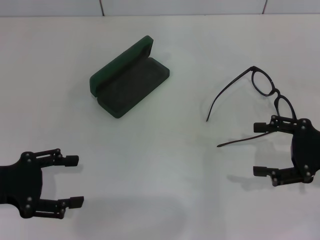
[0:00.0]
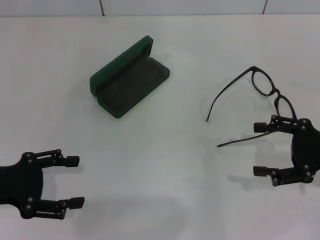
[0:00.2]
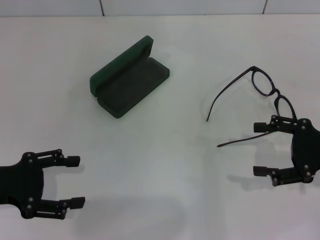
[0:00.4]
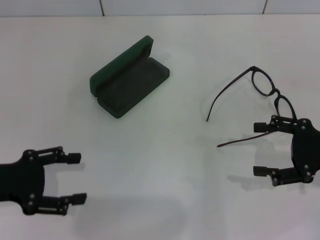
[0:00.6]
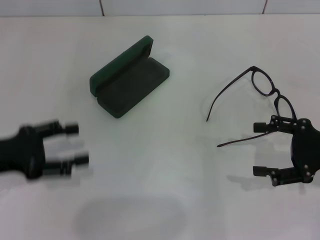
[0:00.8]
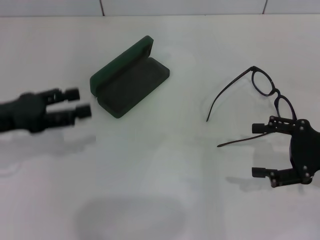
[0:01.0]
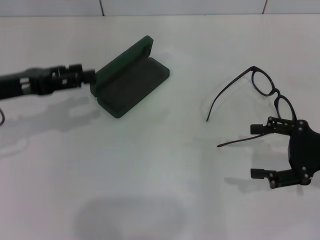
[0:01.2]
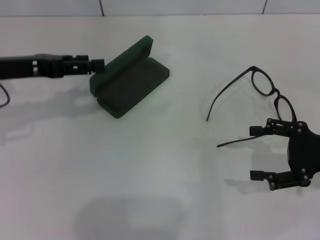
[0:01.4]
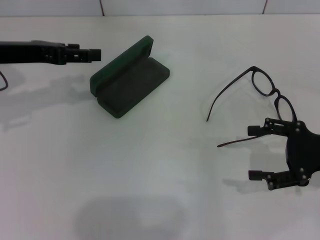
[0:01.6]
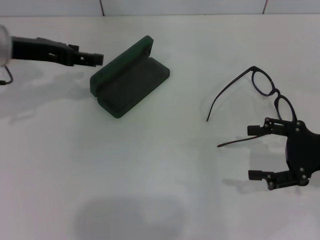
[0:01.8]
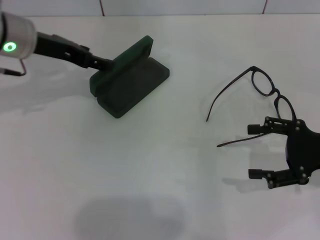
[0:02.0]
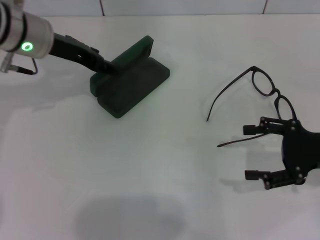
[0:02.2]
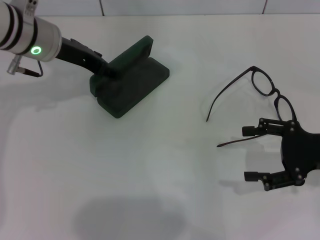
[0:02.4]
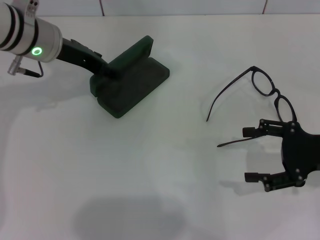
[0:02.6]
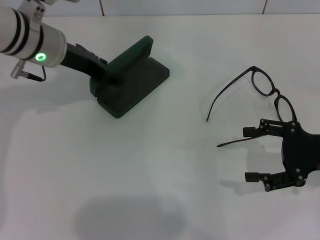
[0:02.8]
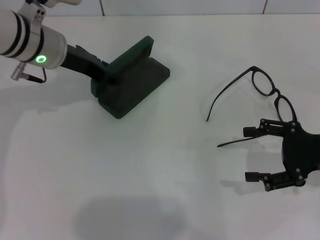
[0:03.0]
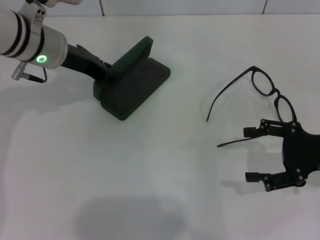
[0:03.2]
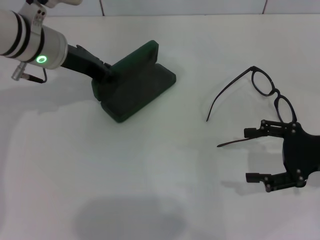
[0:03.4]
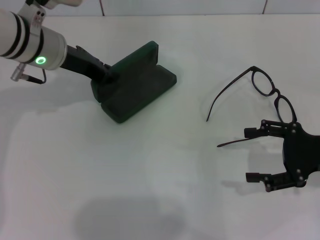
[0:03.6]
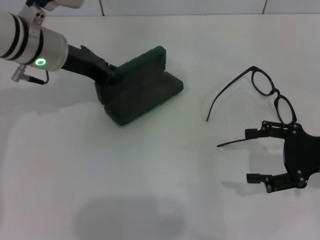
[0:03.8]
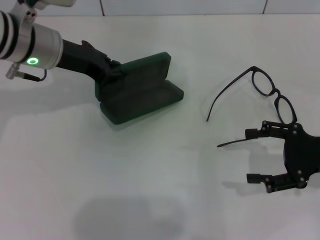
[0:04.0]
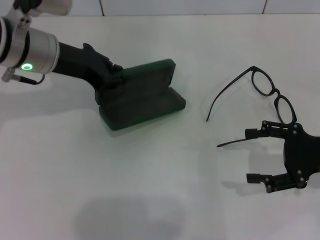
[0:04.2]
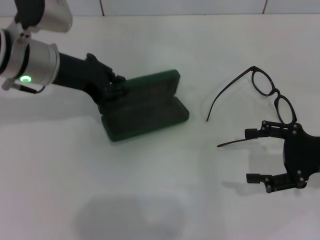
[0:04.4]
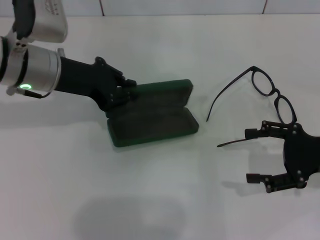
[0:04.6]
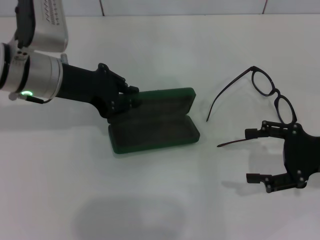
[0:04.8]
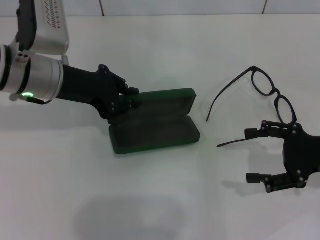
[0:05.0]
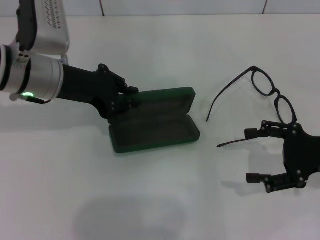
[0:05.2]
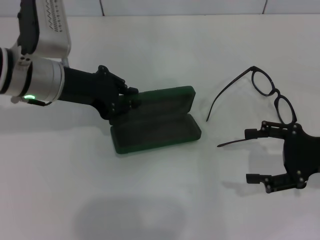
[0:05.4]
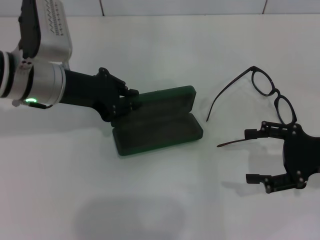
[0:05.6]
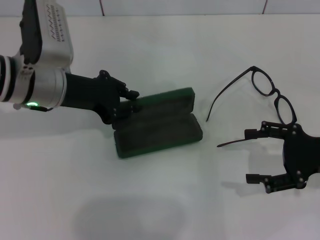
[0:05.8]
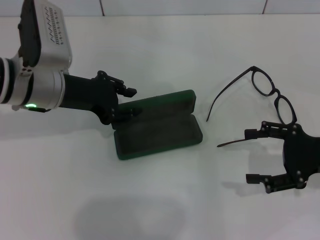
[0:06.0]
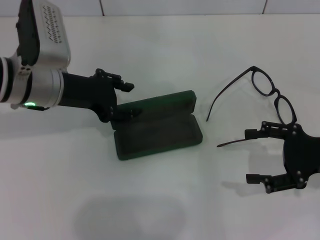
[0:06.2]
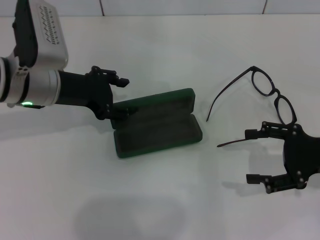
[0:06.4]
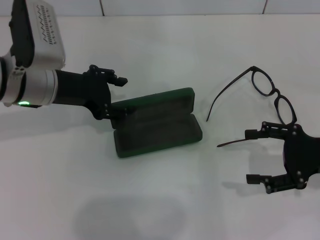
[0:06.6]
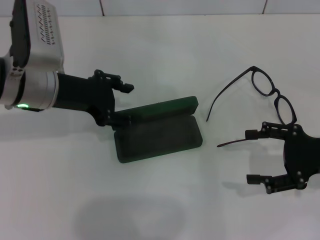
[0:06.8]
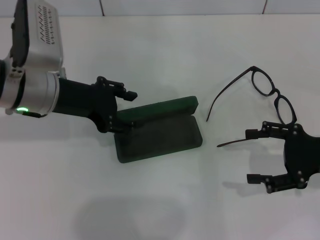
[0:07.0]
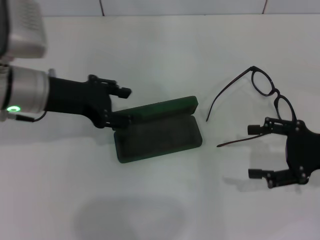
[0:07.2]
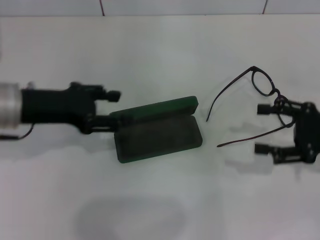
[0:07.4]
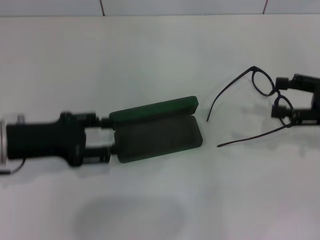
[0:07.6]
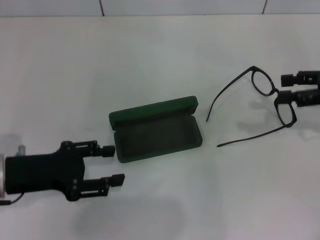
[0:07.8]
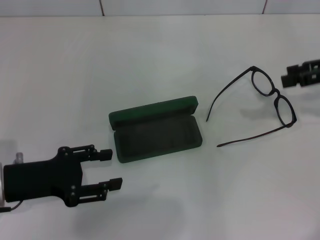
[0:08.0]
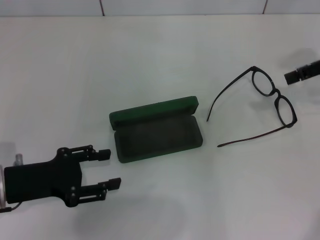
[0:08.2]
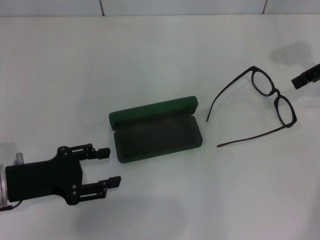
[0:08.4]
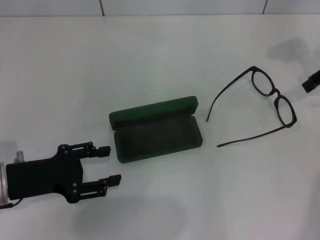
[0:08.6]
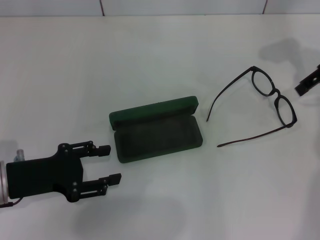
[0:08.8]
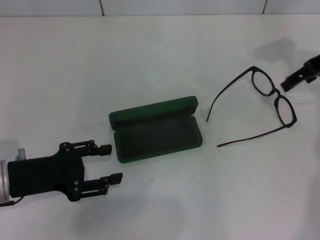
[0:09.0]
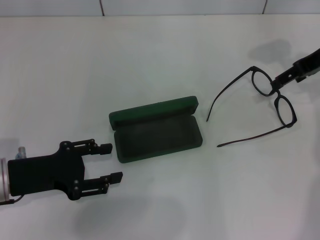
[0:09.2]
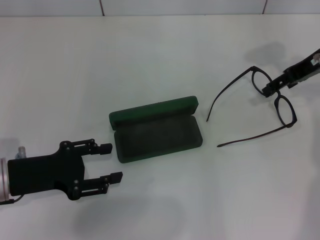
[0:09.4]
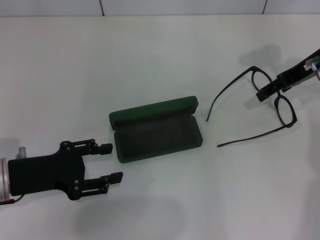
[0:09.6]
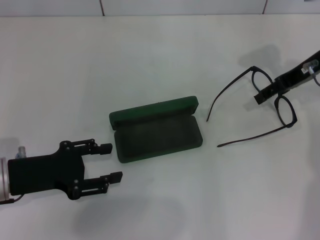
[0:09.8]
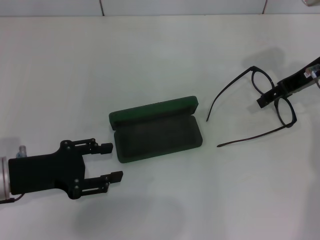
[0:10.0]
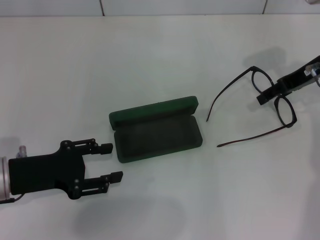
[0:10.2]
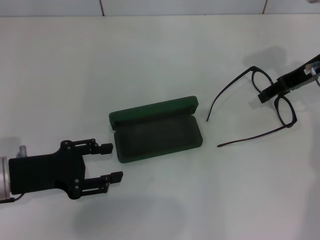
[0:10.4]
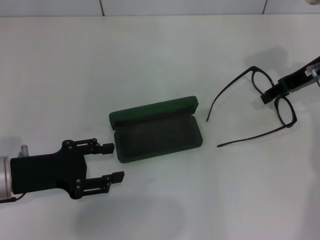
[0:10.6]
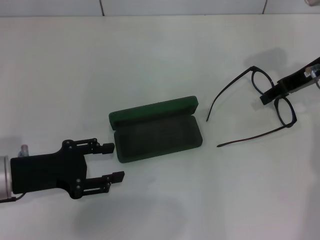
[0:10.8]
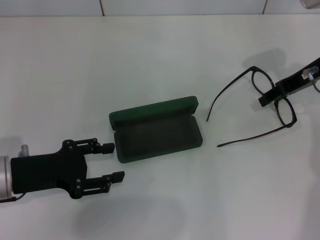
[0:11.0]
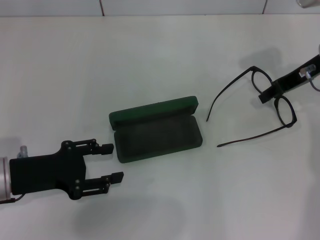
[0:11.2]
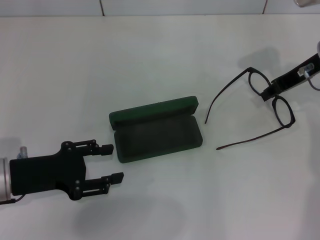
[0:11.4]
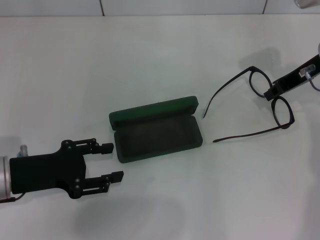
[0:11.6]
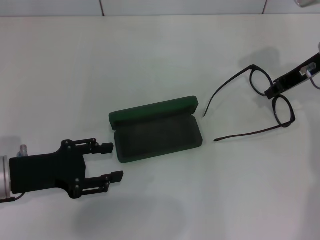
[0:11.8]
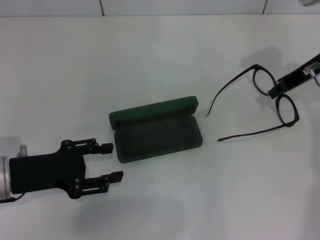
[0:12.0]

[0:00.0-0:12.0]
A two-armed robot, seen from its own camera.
Step, 0:00.0 to 0:03.4: Grab the glasses case with your left hand.
Step, 0:03.8 to 0:06.0: Place the glasses case in the center of the table with your left hand.
Step, 0:06.2 to 0:11.6: Grab the eyeglass frame with your right hand.
0:00.0 to 0:01.6: The left gripper travels forward and upward by approximately 15 cm.
0:01.6 to 0:03.0: The left gripper goes approximately 10 cm to the right.
0:03.0 to 0:04.4: The left gripper closes its fingers.
0:04.4 to 0:06.0: The grippers stay close to where they were, moving slightly.
0:06.0 to 0:07.6: The left gripper goes approximately 10 cm backward and to the left, and opens. Meanwhile the right gripper shifts by about 5 cm.
0:07.6 to 0:09.0: The left gripper ends up about 5 cm from where it was, while the right gripper heads forward, upward and to the left, covering about 15 cm.
0:09.0 to 0:10.4: The right gripper ends up about 5 cm from where it was.
0:10.4 to 0:12.0: The right gripper closes up.

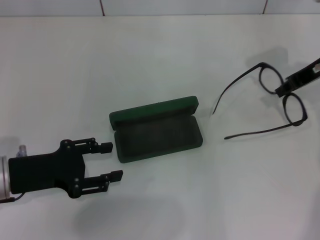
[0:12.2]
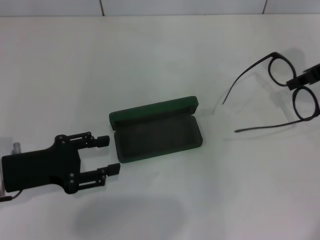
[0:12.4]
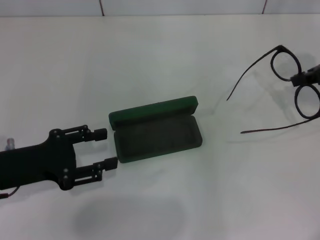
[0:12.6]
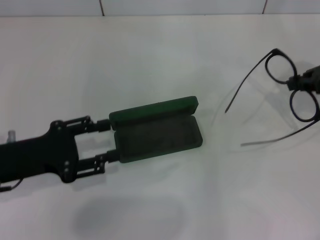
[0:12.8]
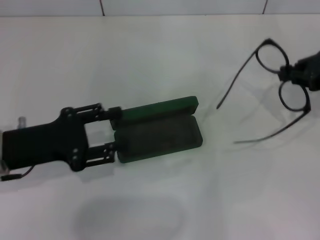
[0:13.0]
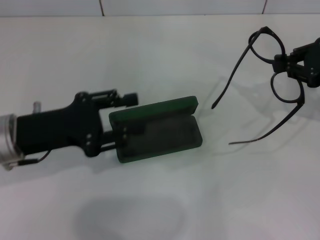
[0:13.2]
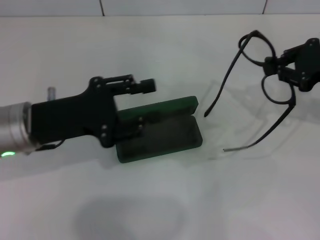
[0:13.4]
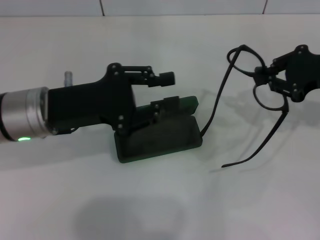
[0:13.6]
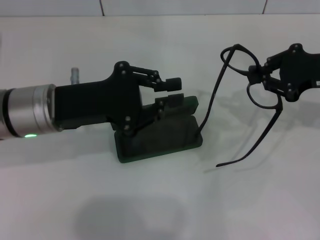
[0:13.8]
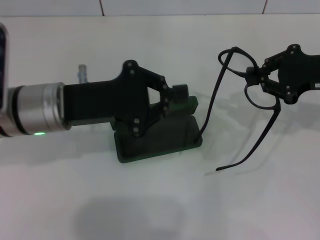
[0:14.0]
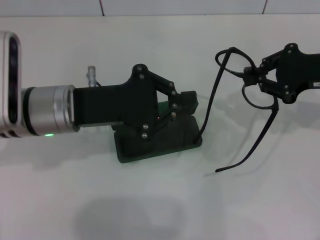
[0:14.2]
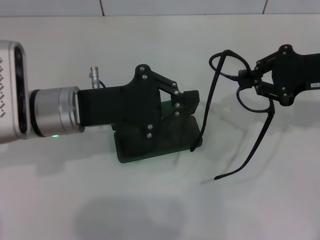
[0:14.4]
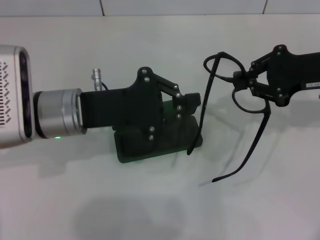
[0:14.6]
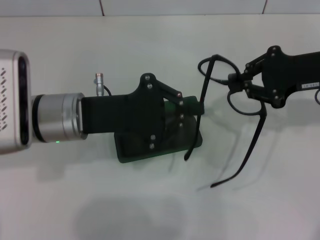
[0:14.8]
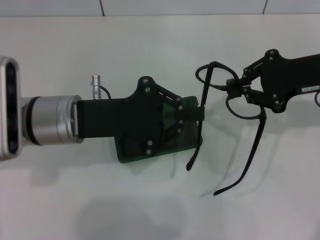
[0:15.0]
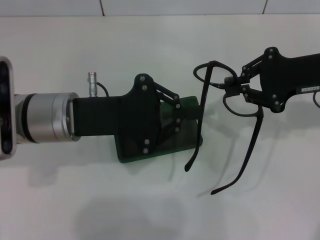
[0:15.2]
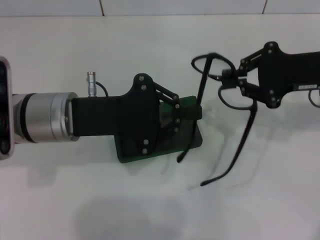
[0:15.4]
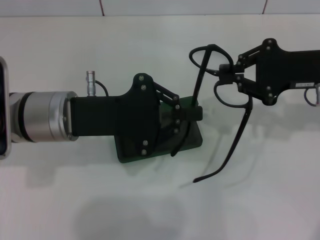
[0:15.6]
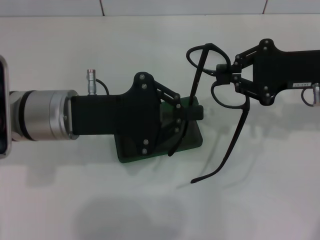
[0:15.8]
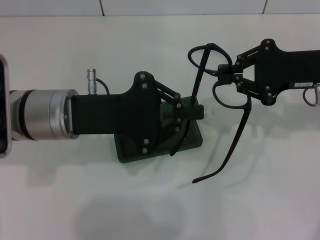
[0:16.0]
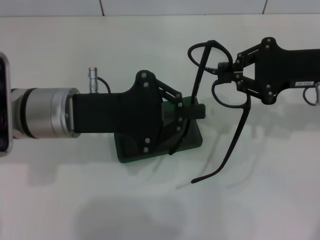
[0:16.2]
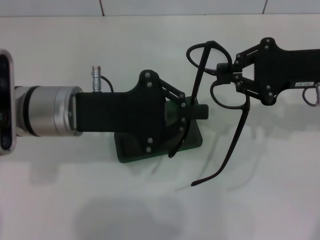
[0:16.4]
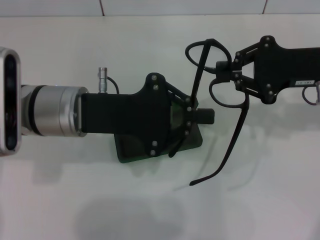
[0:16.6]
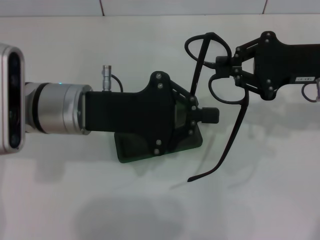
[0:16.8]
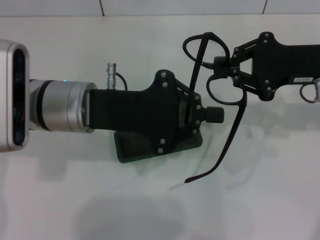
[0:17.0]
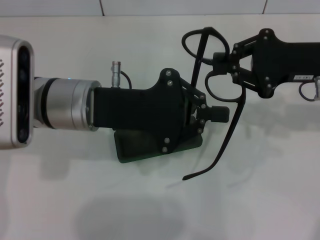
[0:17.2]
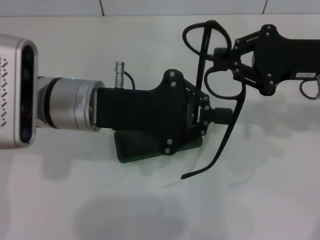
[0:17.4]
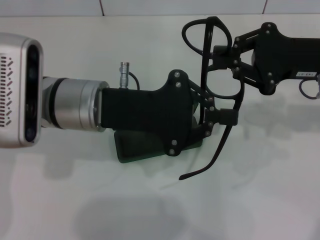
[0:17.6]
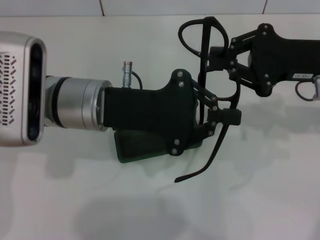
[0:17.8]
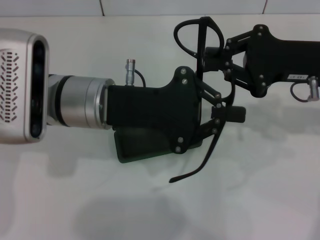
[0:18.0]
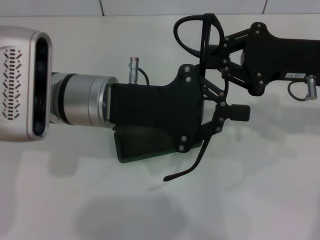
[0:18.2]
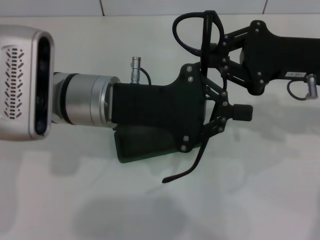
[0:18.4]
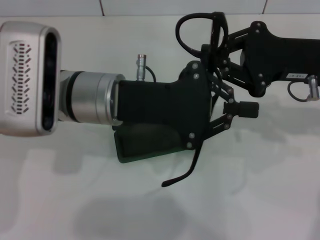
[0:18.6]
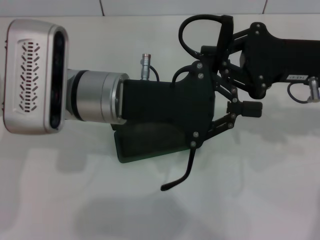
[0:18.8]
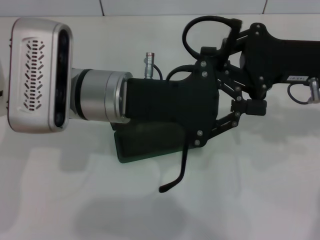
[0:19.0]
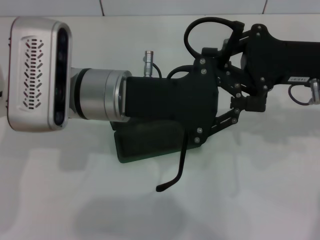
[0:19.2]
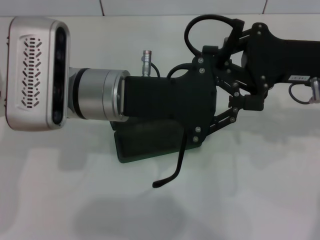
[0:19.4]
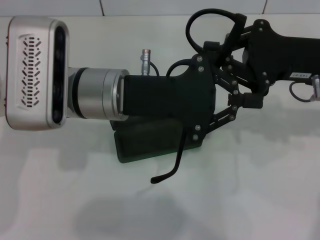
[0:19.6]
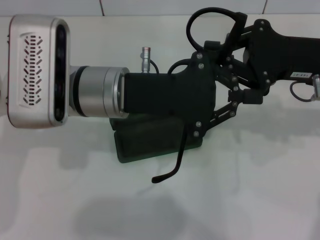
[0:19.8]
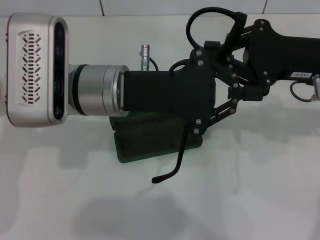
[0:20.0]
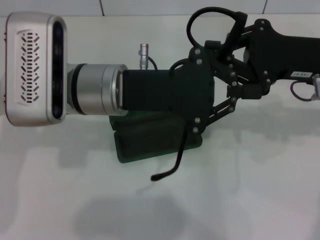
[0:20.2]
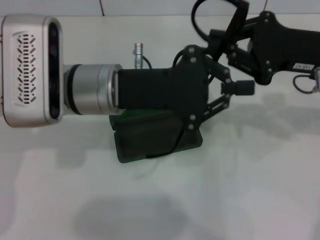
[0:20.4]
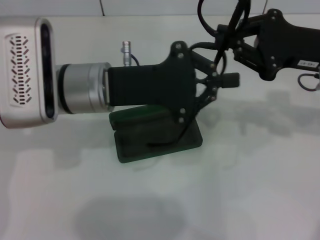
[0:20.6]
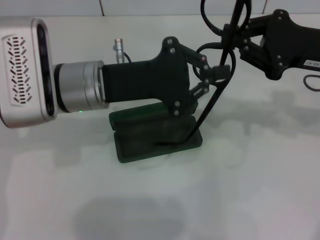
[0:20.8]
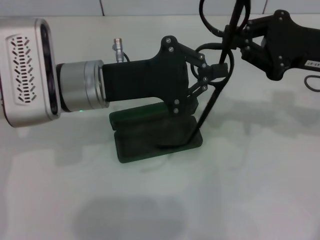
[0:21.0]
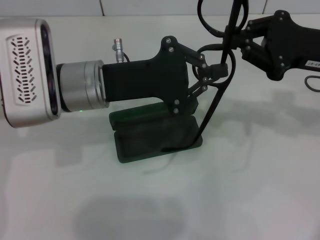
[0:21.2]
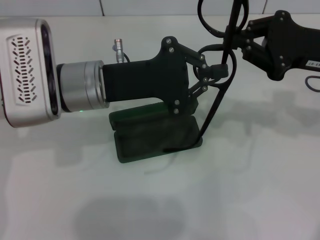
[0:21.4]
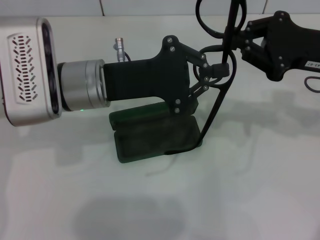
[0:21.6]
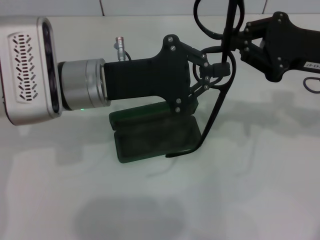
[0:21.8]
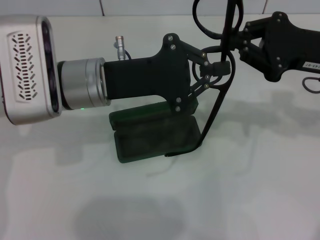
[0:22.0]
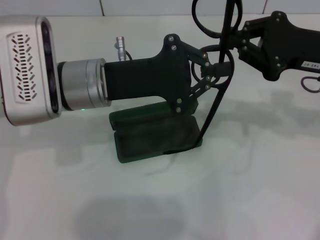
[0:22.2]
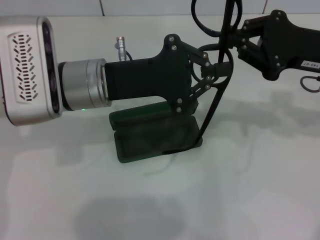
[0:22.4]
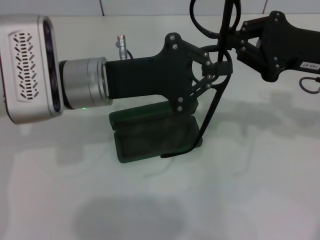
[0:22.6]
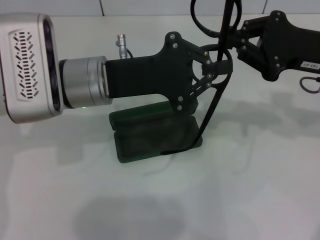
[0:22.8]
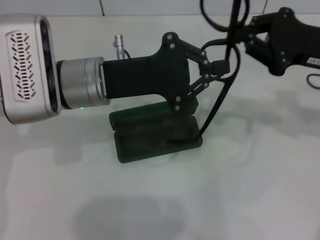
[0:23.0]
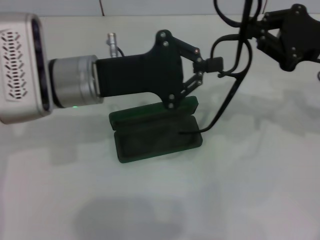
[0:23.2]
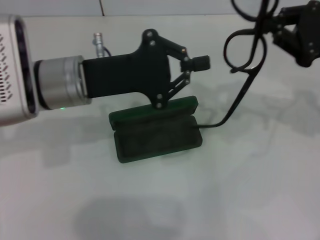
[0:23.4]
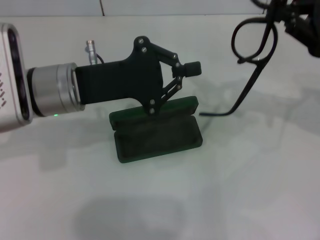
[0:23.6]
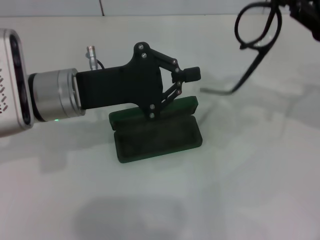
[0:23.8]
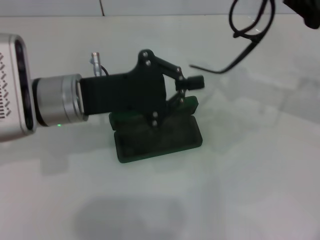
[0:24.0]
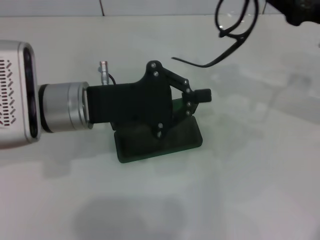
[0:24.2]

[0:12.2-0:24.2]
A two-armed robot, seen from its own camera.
0:12.2 to 0:13.8: The left gripper shifts approximately 10 cm to the right, forward and upward, and closes up, while the right gripper is displaced backward by some 5 cm.
0:15.2 to 0:16.6: There are only small adjustments of the grippers.
0:18.2 to 0:19.8: The grippers make only small movements.
0:21.2 to 0:22.6: Both grippers stay put.
